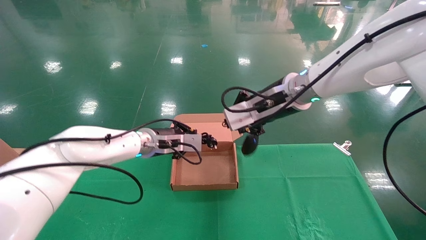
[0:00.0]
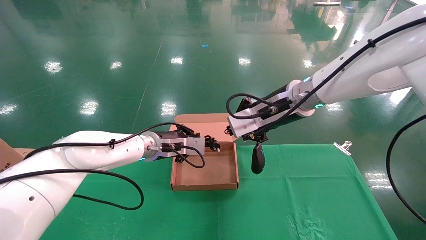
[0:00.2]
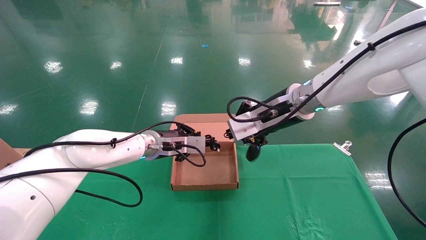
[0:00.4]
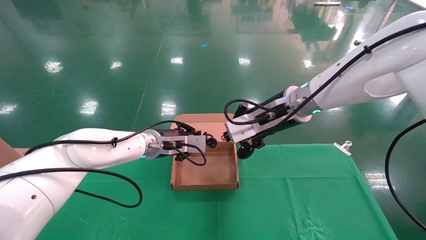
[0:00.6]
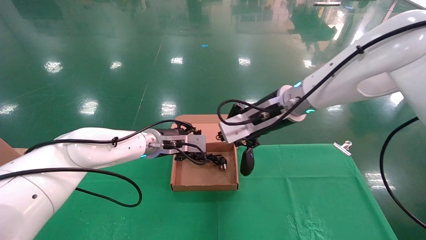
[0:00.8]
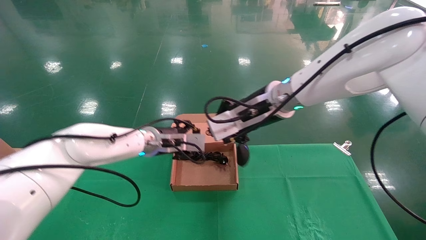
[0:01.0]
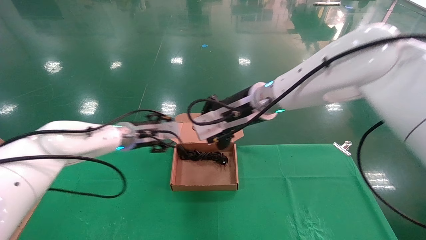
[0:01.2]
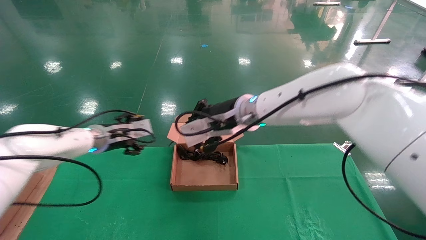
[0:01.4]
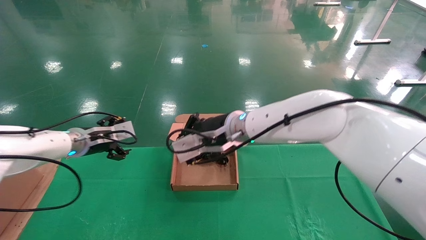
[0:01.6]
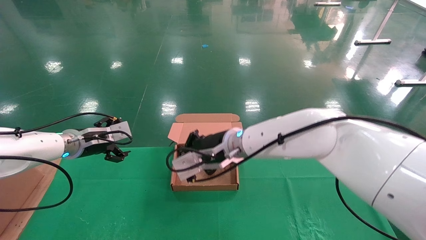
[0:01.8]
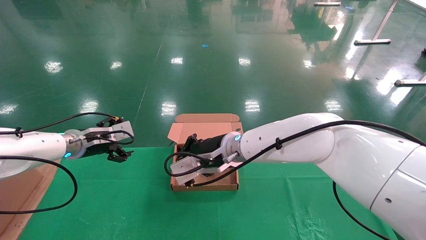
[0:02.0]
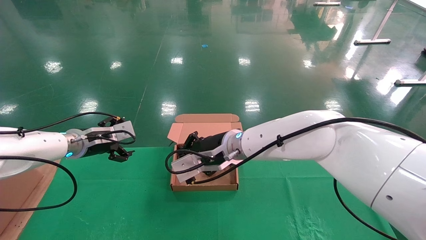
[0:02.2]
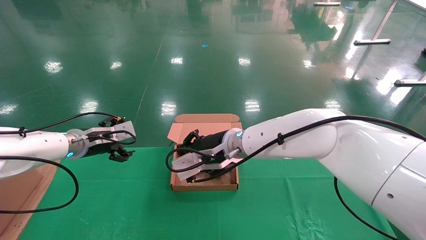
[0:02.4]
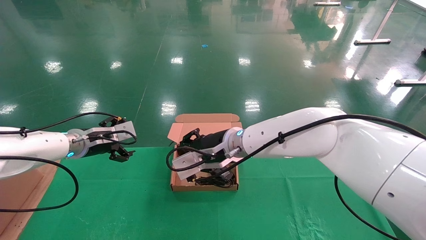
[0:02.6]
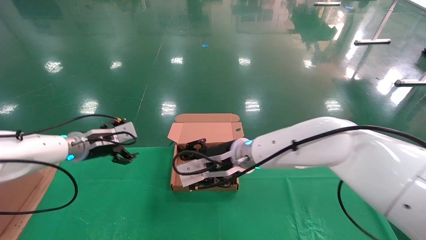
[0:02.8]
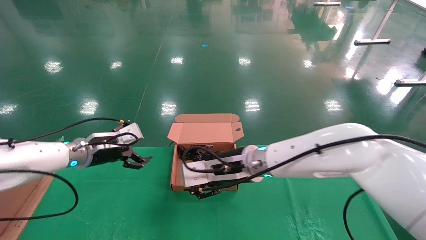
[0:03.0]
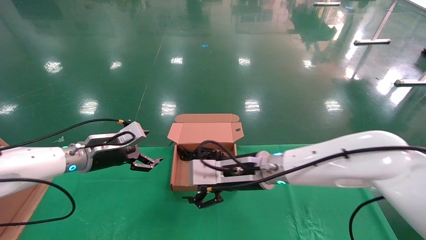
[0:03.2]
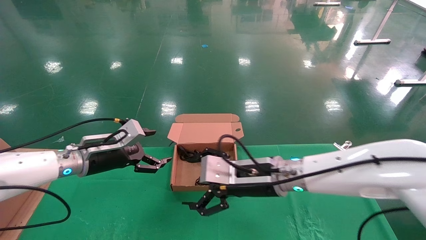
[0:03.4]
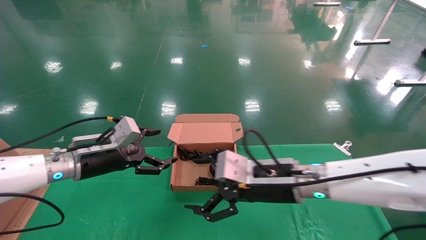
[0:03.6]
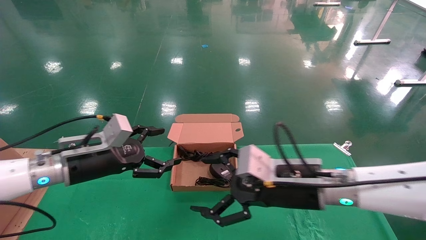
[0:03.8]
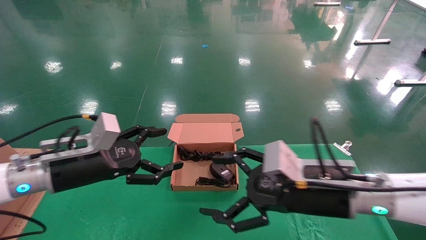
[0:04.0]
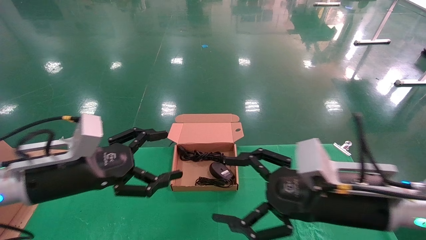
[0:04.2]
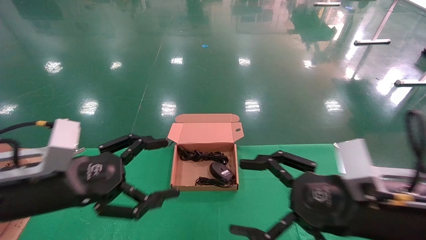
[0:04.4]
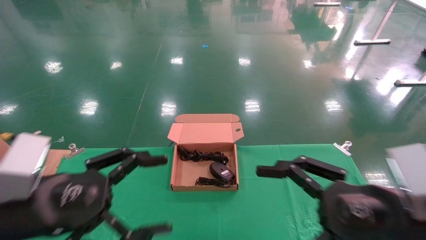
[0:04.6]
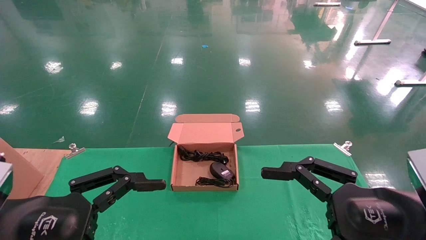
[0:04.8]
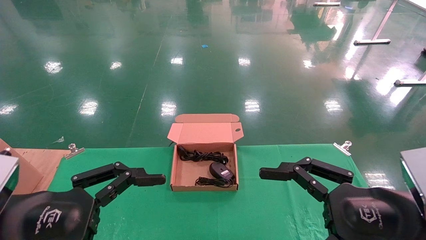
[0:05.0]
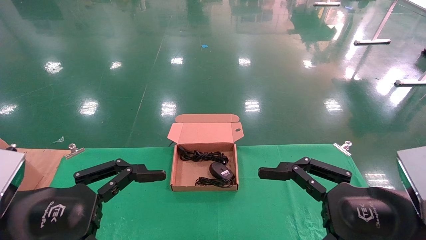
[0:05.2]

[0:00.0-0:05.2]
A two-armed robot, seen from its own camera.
Step, 0:00.0 to 0:03.2: Place the mouse and power cord into the box.
0:00.0 to 0:01.8: The left gripper heads to the left, covering about 15 cm, and opens up. The right gripper is displaced to the left and downward by some 15 cm.
0:01.8 to 0:03.4: The left gripper goes roughly 5 cm backward; the right gripper is displaced to the right and backward by approximately 10 cm, and opens its fingers.
0:03.4 to 0:05.2: The left gripper shifts roughly 25 cm backward, while the right gripper travels backward and to the right by roughly 25 cm.

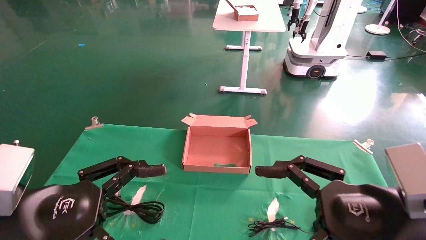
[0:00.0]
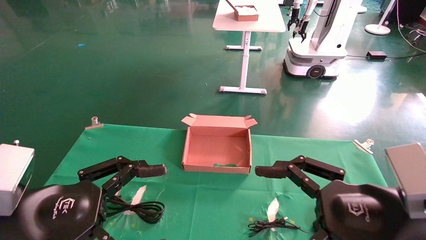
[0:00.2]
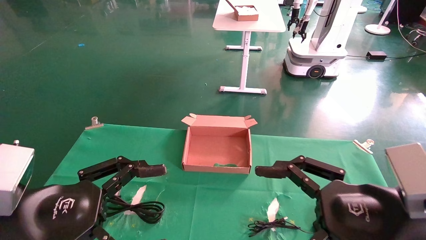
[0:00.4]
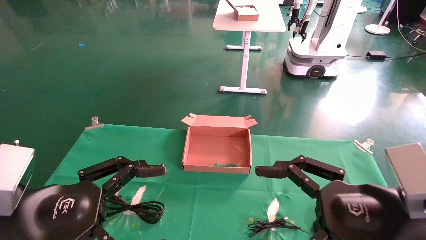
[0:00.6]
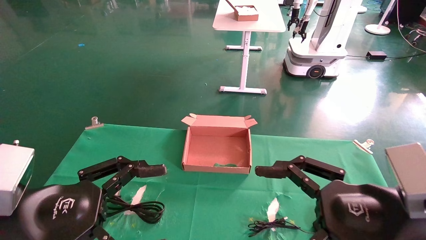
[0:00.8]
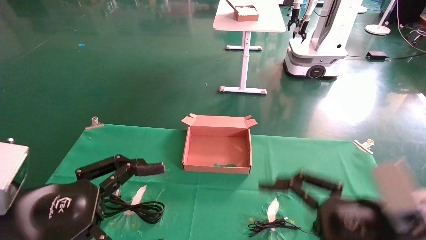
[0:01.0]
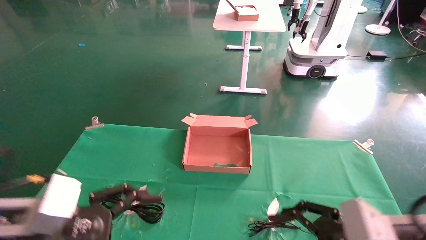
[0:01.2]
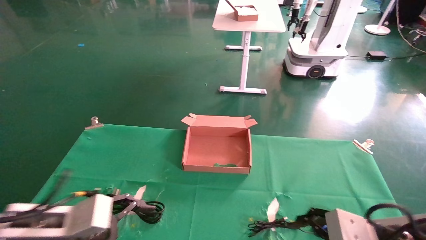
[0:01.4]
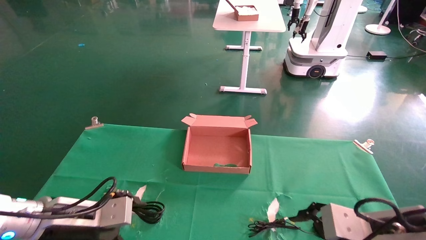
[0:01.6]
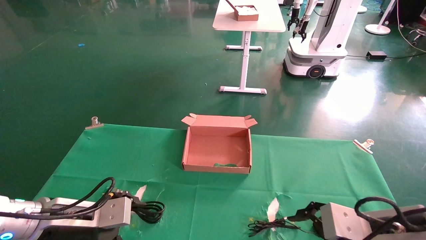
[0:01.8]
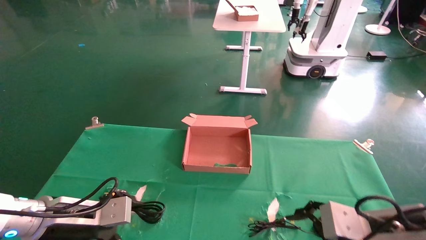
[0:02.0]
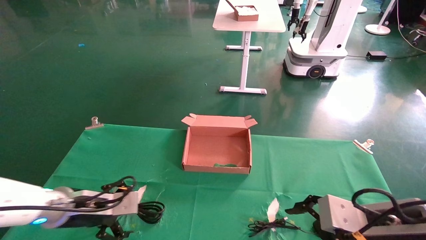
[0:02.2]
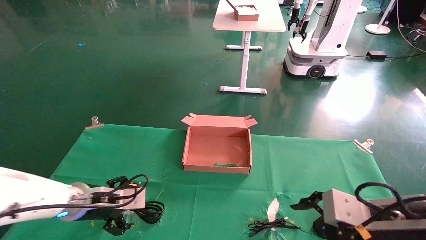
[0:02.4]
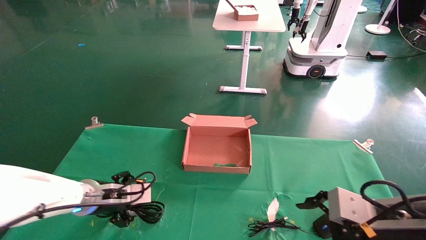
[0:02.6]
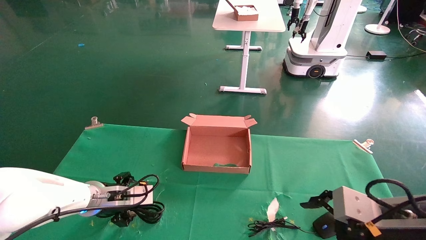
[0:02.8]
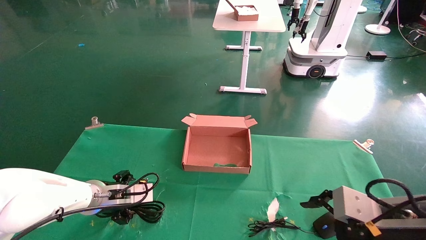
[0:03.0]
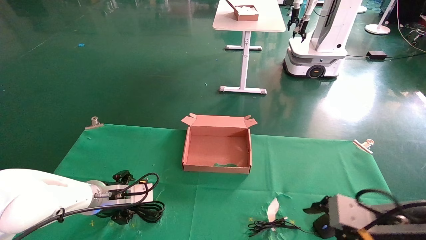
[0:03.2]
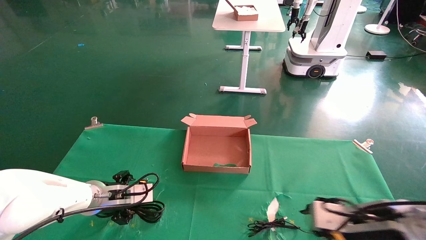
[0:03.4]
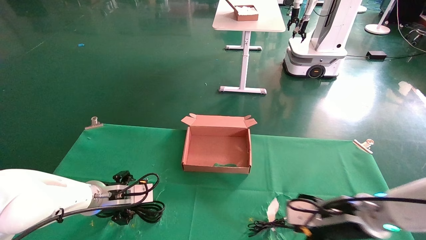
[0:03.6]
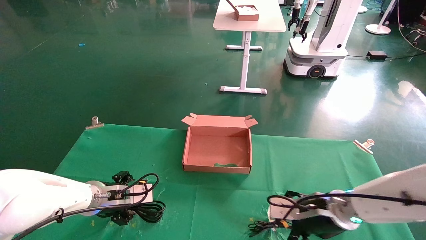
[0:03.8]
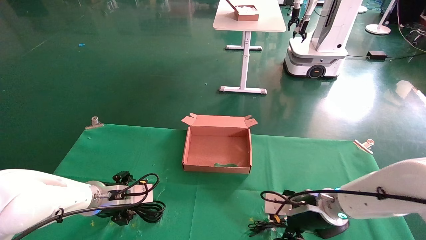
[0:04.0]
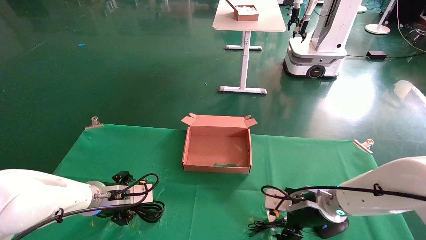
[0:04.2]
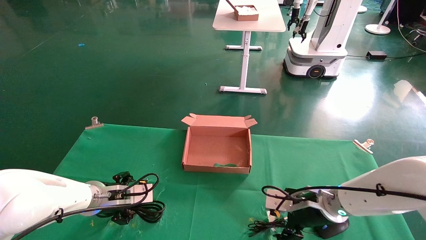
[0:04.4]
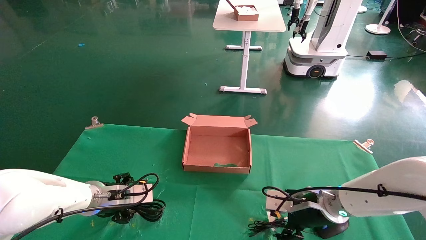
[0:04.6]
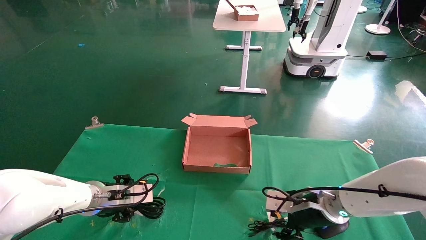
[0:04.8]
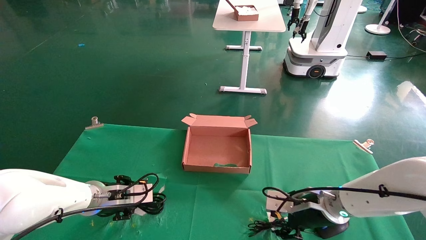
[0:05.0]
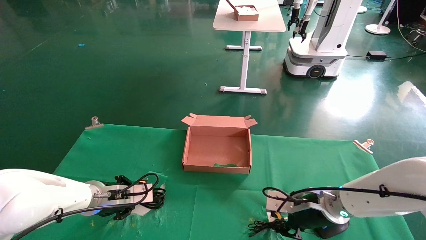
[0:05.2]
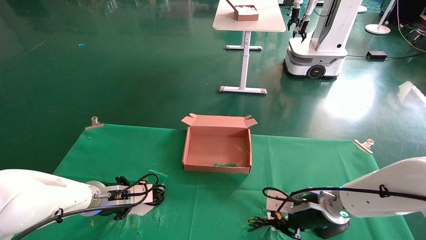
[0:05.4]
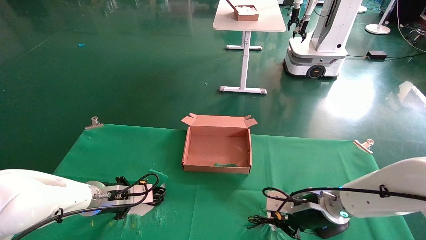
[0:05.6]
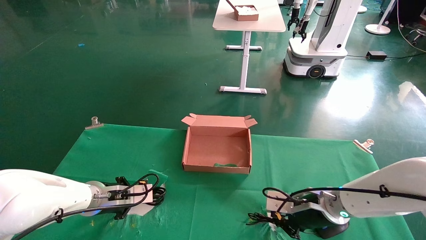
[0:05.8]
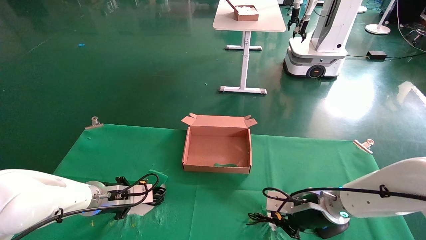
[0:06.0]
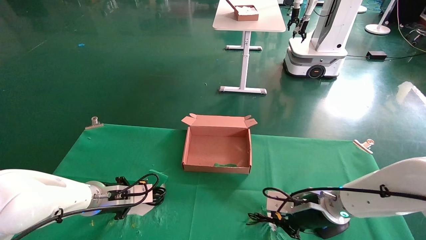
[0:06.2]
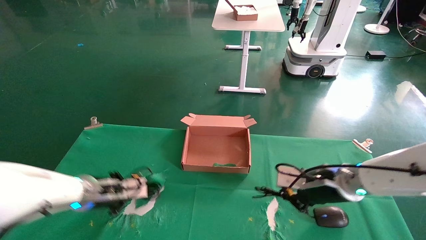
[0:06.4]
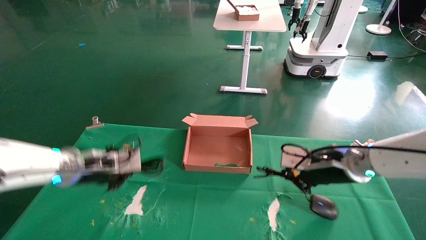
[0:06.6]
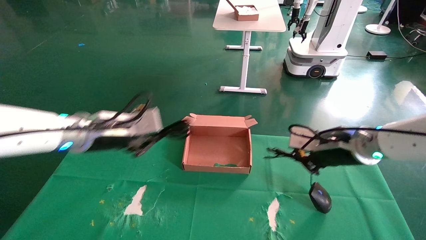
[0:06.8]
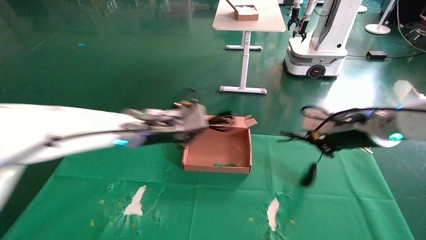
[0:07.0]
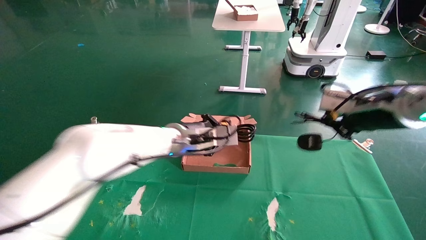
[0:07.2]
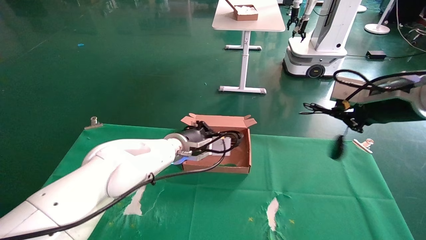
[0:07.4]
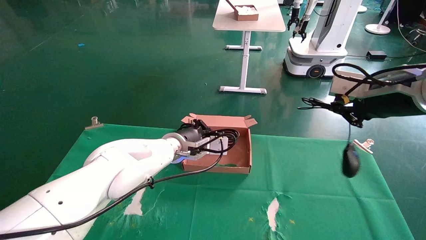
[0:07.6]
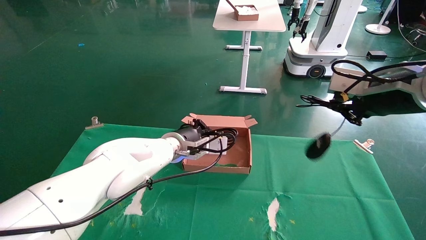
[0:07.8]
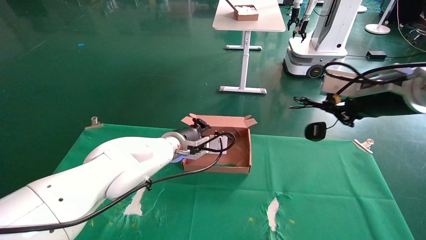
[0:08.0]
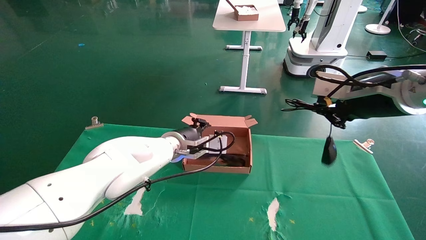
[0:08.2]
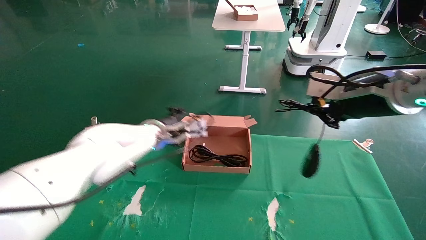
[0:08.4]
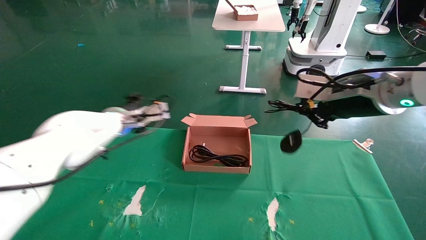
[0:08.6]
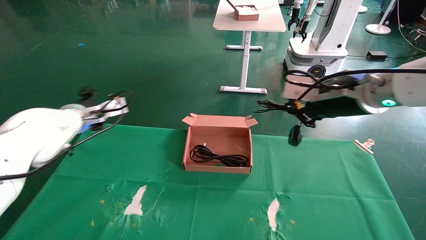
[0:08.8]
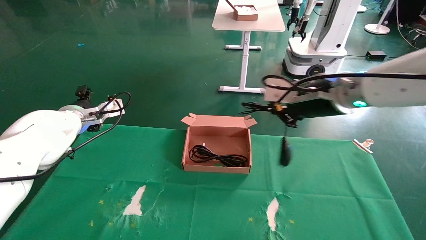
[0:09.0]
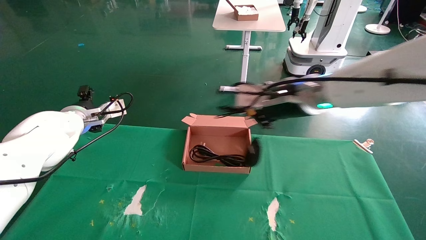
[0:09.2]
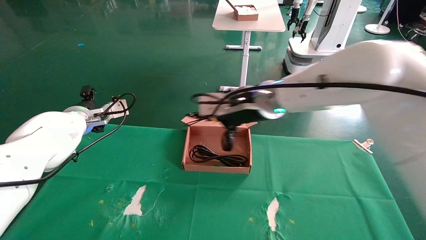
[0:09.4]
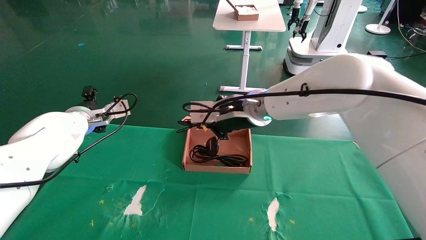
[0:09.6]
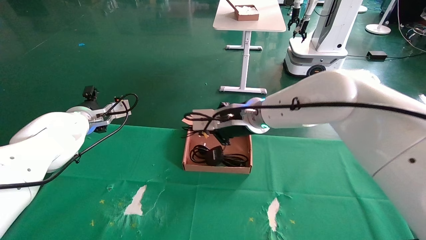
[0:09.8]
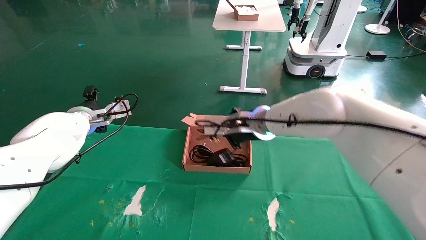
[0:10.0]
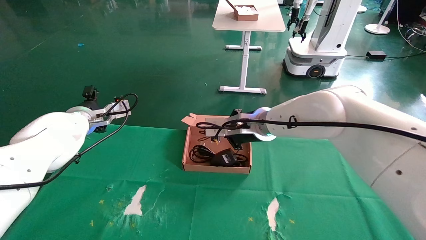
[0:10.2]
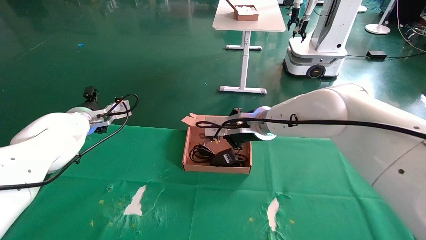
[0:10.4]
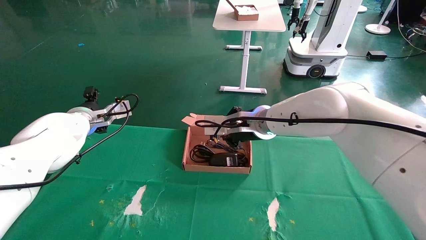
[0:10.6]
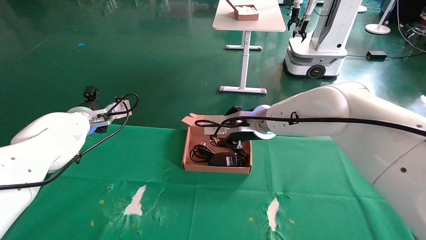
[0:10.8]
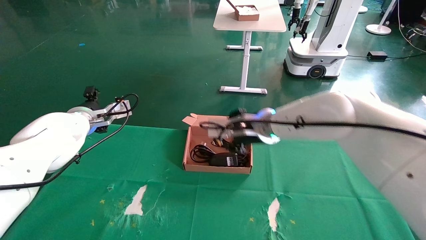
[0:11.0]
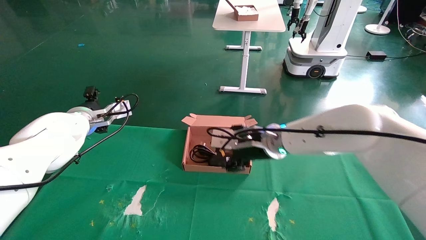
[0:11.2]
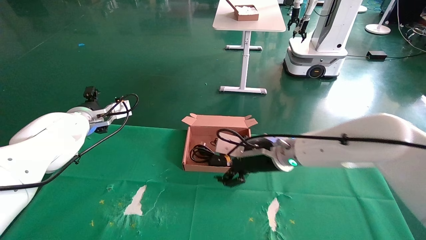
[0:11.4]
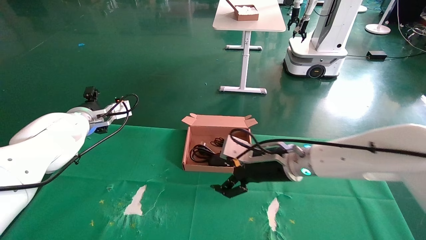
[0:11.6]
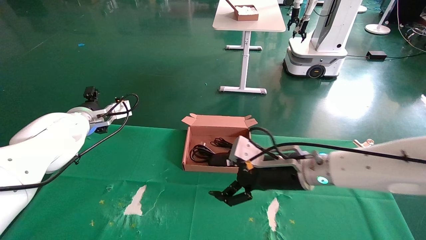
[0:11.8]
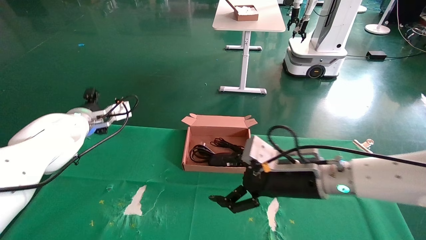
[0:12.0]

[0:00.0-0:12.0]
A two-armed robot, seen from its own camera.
Step, 0:02.4 to 0:06.8: Grab and lift both the mouse and power cord from the accessory packaging area at the same time.
Step, 0:07.0 to 0:11.6: Place the mouse and power cord into the box.
0:00.0 to 0:01.6: The right gripper goes about 5 cm downward; the left gripper heads forward and downward, covering about 10 cm.
0:01.6 to 0:03.0: The left gripper moves forward, about 10 cm.
0:03.0 to 0:04.4: The right gripper goes approximately 20 cm forward, to the left and downward.
0:04.4 to 0:06.0: The left gripper closes its fingers. Meanwhile the right gripper closes up.
0:06.0 to 0:07.6: The right gripper shifts roughly 25 cm upward. Meanwhile the left gripper moves to the right, upward and forward, roughly 20 cm.
0:07.6 to 0:09.0: The left gripper moves to the left, approximately 20 cm, and opens its fingers. The right gripper heads to the left, covering about 10 cm.
0:09.0 to 0:10.4: The right gripper goes some 15 cm to the left, forward and downward.
0:10.4 to 0:12.0: The right gripper is displaced backward, to the right and downward by about 15 cm, and opens up.
